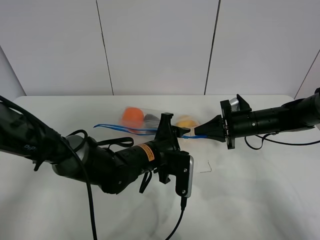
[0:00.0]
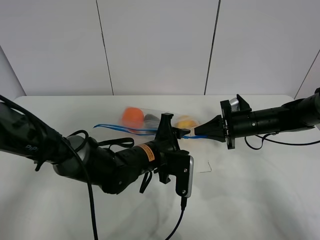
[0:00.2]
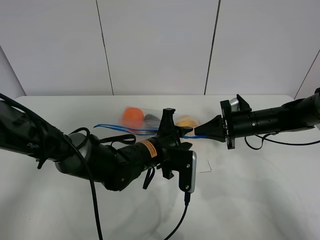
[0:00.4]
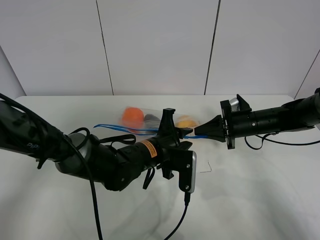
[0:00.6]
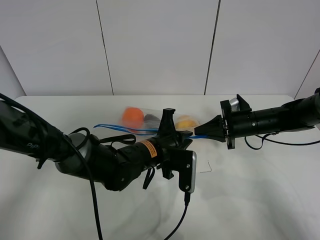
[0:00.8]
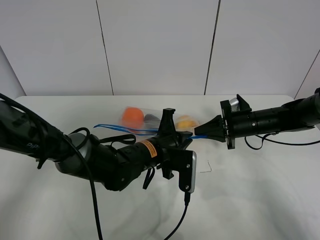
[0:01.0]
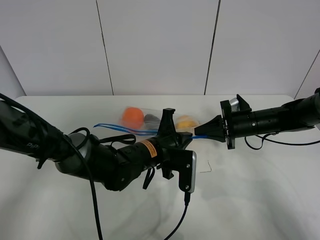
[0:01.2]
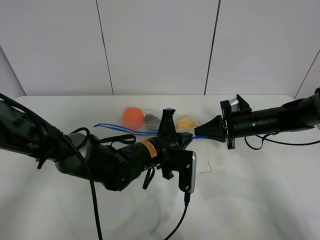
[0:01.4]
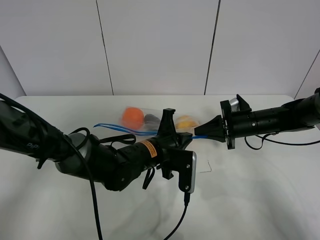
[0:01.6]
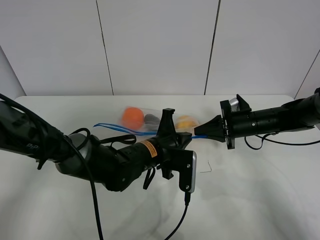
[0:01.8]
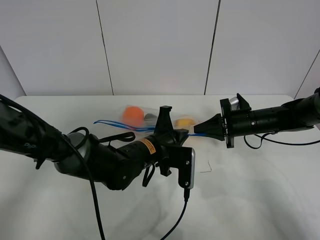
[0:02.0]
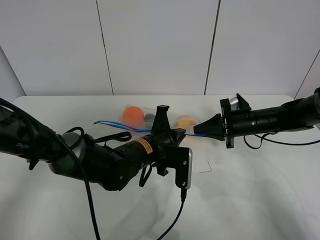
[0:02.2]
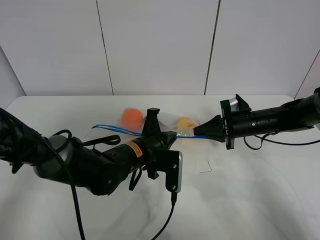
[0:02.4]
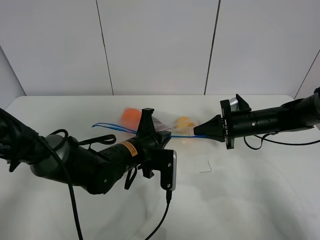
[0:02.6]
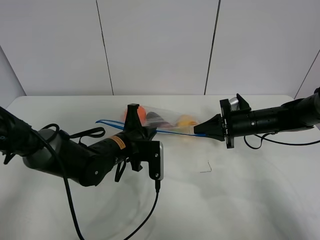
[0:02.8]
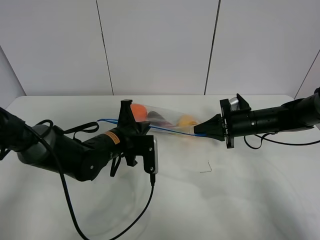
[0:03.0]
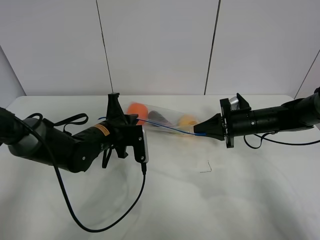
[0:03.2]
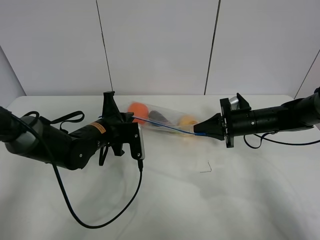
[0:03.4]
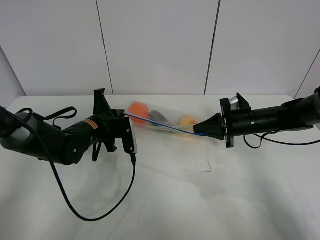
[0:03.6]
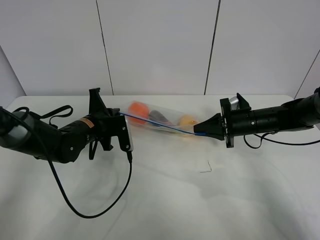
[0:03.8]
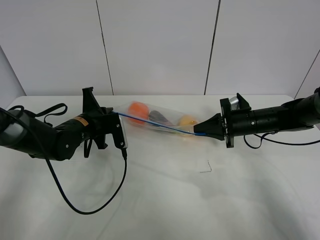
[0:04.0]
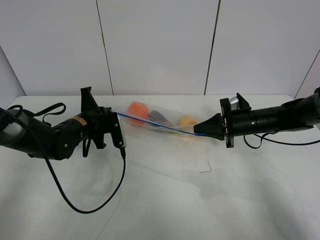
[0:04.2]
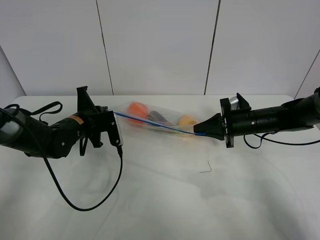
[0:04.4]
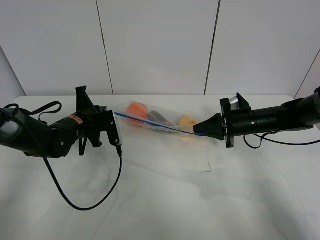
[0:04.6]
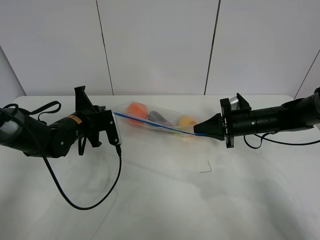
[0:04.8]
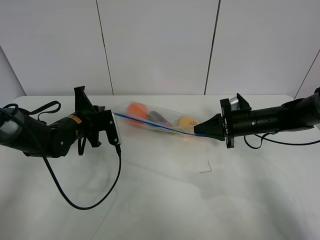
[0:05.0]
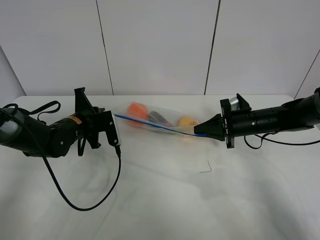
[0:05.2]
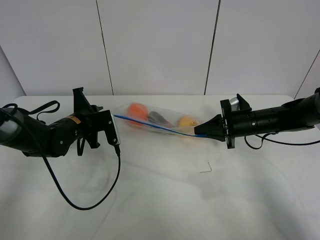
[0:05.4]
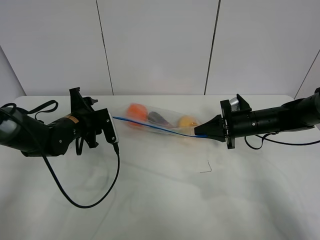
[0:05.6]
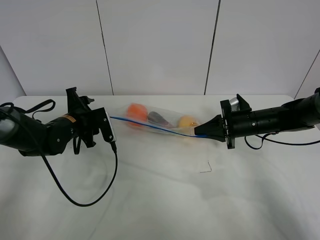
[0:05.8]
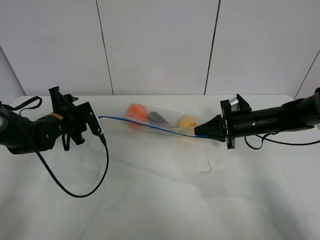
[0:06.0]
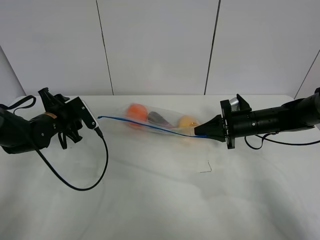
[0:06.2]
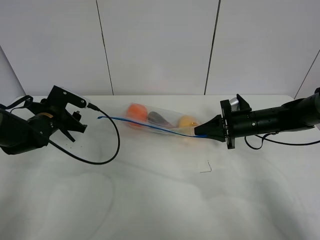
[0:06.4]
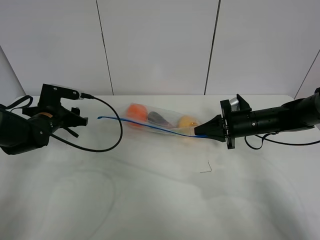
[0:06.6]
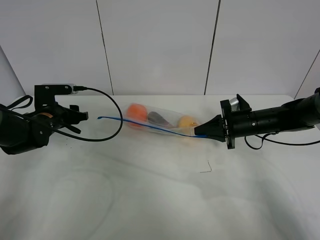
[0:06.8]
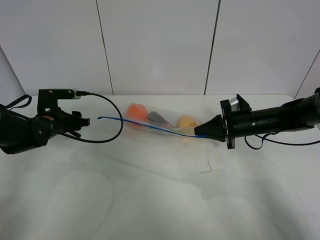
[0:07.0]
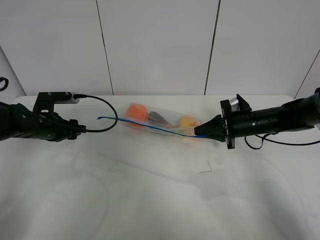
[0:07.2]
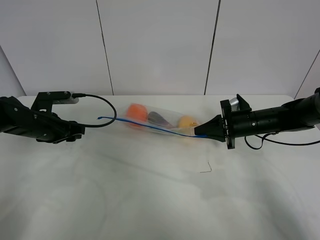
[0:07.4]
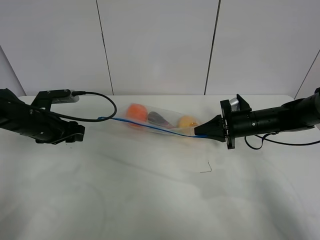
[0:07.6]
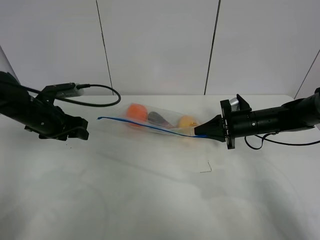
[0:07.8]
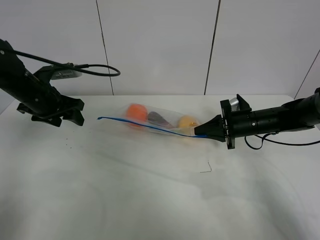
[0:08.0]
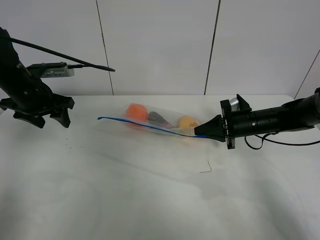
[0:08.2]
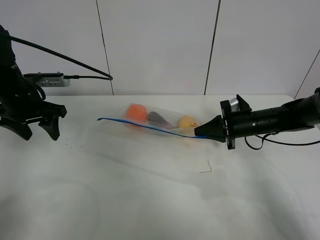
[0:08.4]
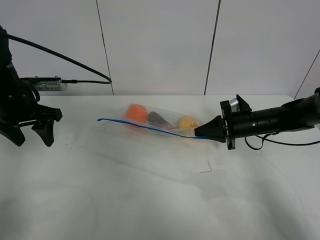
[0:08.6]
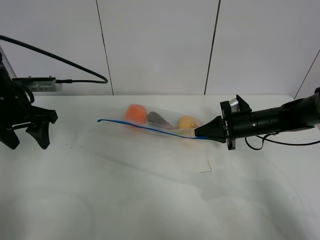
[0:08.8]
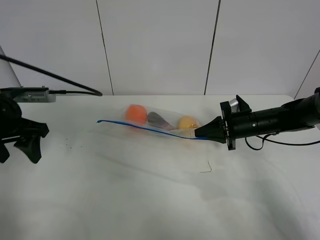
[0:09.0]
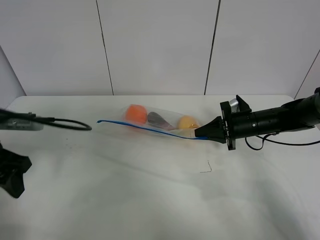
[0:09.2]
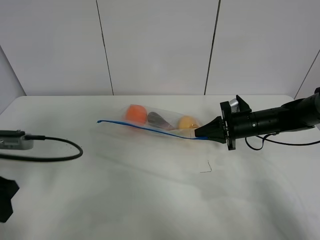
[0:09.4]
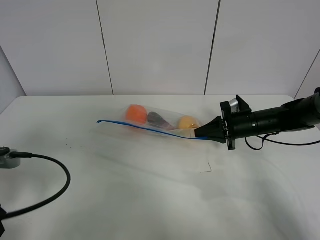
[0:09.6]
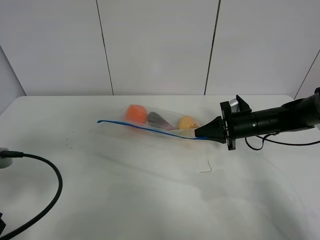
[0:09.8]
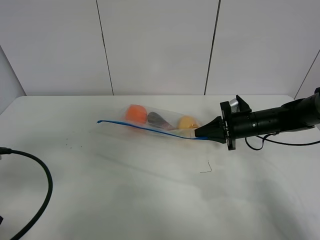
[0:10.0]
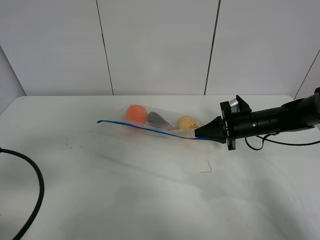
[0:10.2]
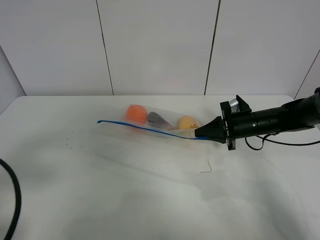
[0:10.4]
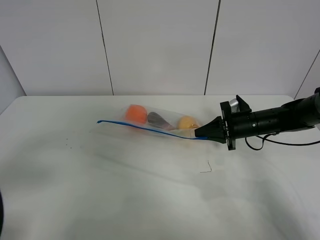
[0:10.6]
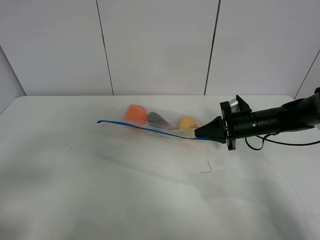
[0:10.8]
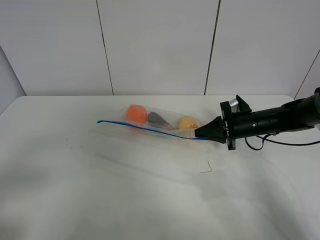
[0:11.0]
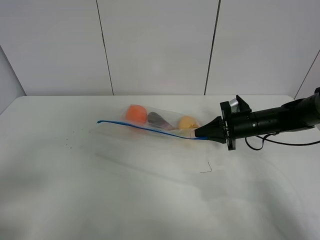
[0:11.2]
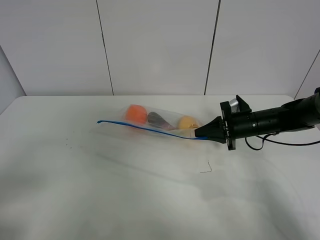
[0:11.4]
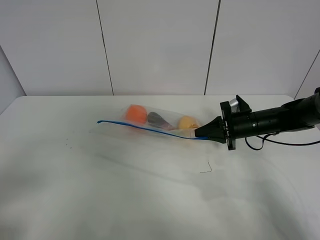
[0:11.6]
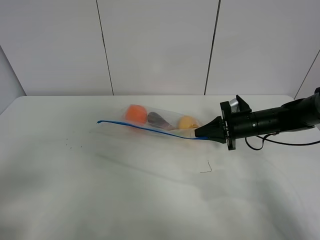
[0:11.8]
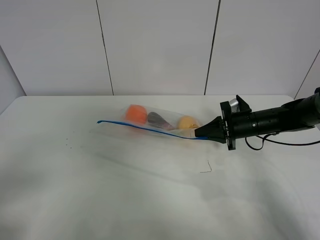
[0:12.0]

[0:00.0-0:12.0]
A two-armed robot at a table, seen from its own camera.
Step, 0:00.0 to 0:05.6: Pull the fruit bag with left gripper.
0:00.0 to 0:01.6: The left gripper closes up.
0:01.6 to 0:03.0: The left gripper is displaced to the left by some 10 cm.
0:03.0 to 0:04.4: The left gripper moves to the left, approximately 10 cm.
0:04.4 to 0:06.0: The left gripper travels to the left by approximately 5 cm, and opens its fingers.
0:07.6 to 0:09.0: The left gripper is displaced upward and backward by roughly 10 cm.
0:09.0 to 0:10.4: The left gripper moves backward, about 20 cm.
0:10.4 to 0:12.0: The left gripper heads backward, covering approximately 5 cm.

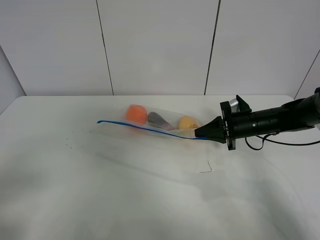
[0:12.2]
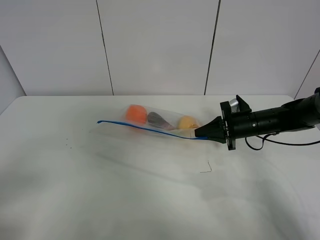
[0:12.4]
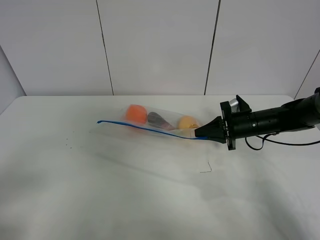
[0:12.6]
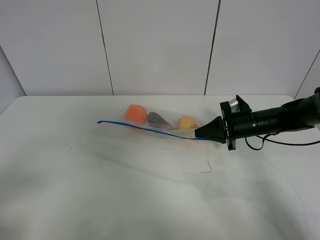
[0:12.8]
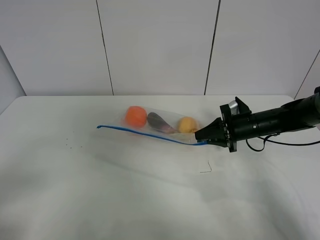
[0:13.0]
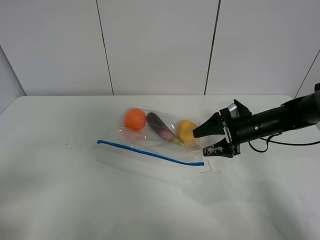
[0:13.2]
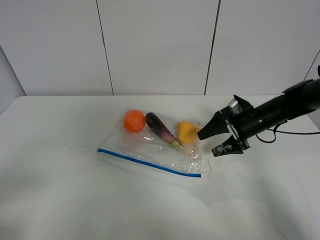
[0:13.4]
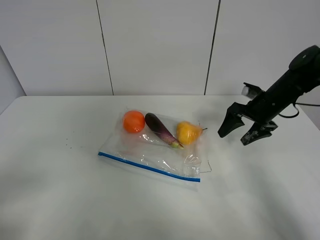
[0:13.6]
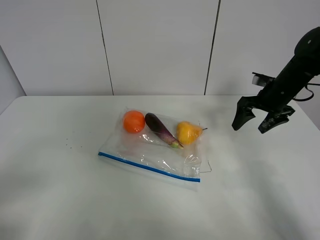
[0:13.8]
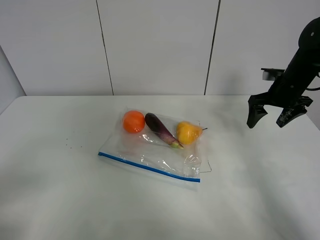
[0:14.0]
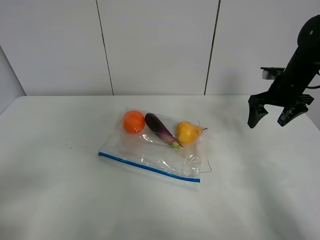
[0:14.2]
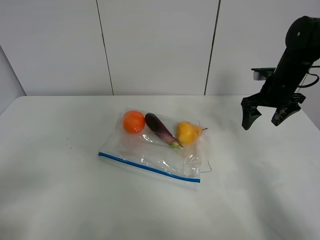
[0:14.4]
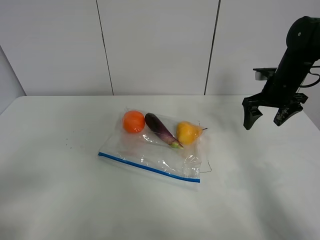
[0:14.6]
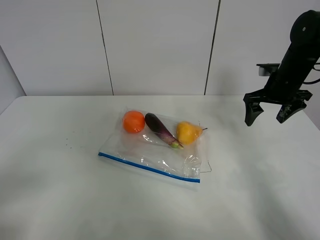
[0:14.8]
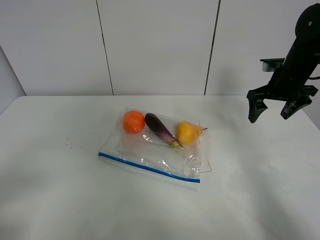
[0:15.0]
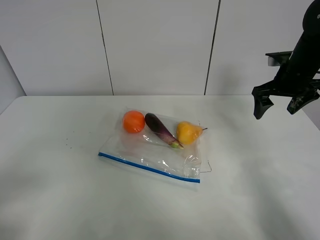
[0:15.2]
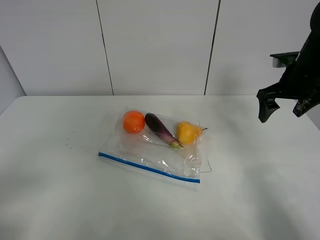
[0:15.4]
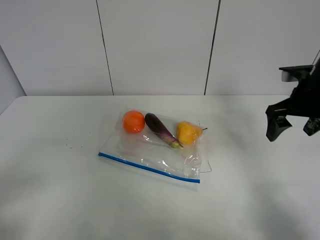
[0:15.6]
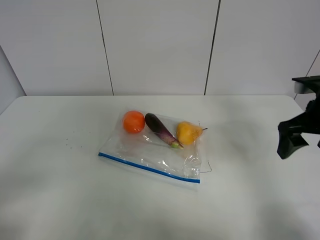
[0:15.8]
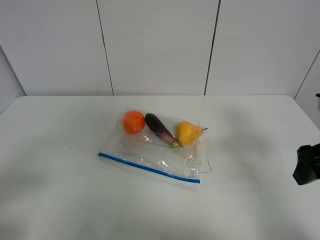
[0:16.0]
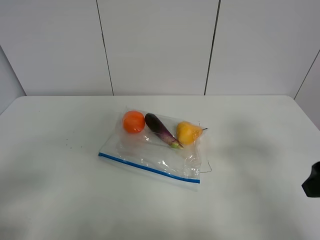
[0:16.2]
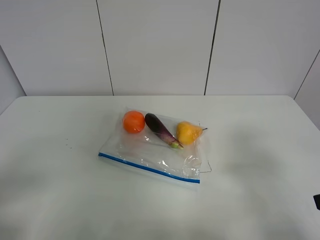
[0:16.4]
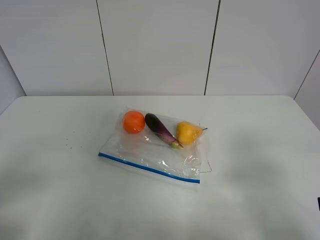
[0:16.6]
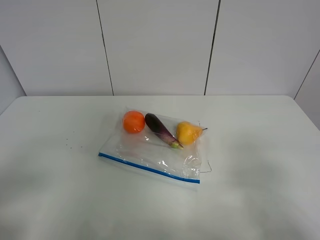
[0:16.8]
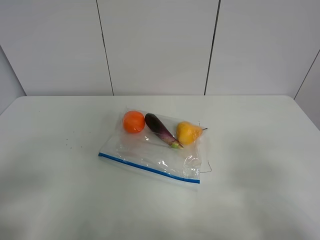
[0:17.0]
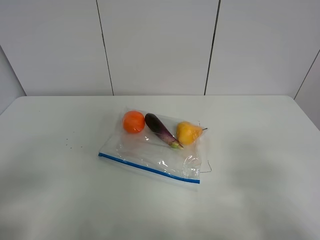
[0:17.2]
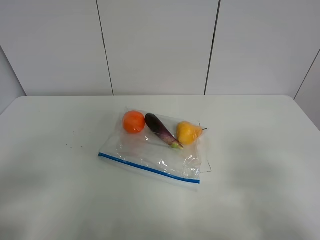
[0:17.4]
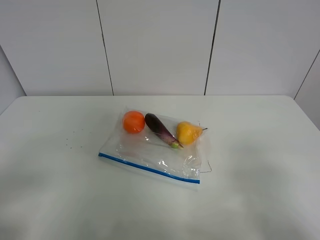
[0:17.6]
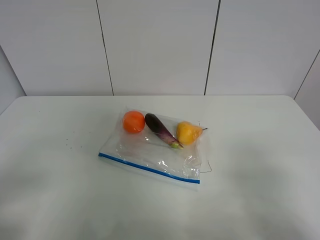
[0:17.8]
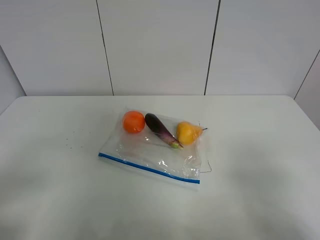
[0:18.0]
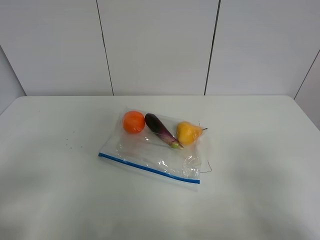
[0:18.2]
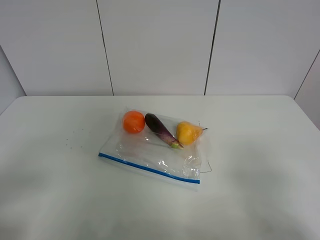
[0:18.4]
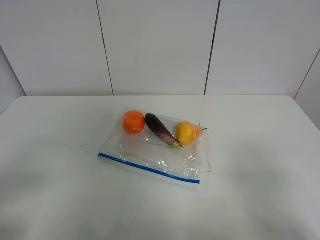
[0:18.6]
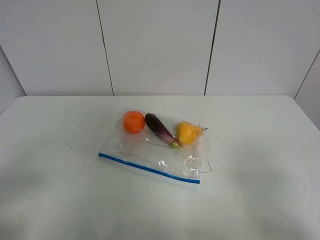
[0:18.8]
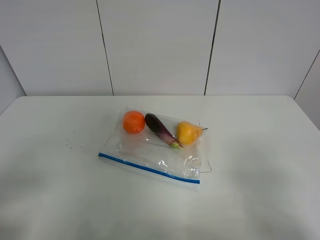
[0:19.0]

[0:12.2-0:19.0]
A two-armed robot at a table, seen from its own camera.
0:12.2 to 0:13.6: The right gripper goes approximately 5 cm upward, and opens.
0:13.6 to 0:15.0: The right gripper goes some 5 cm upward.
0:15.0 to 0:16.2: The right gripper moves backward, roughly 25 cm.
0:16.2 to 0:17.6: The right gripper travels backward by some 10 cm.
